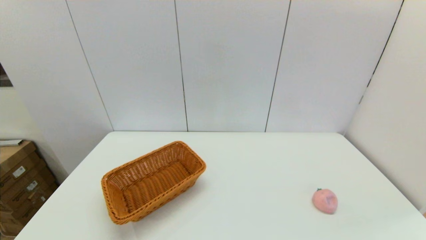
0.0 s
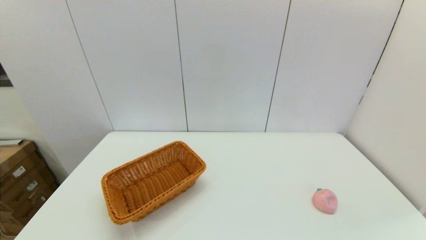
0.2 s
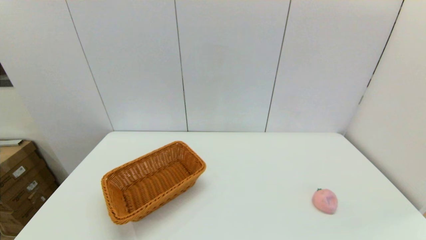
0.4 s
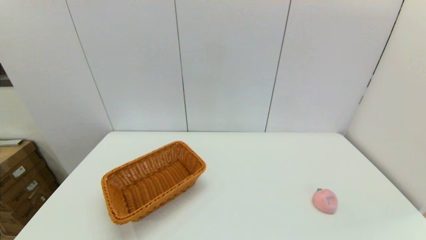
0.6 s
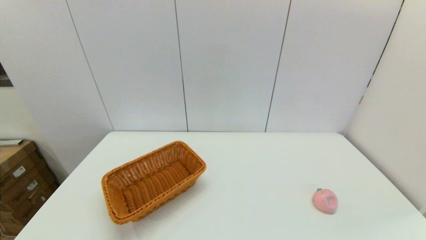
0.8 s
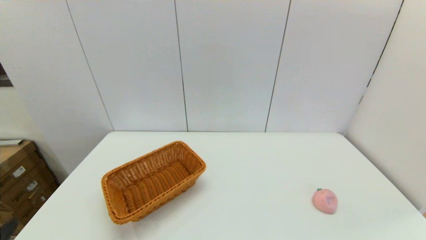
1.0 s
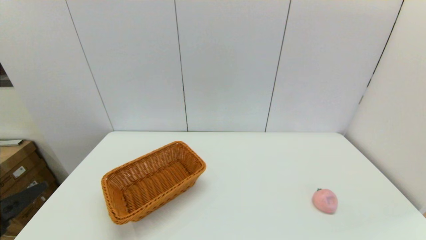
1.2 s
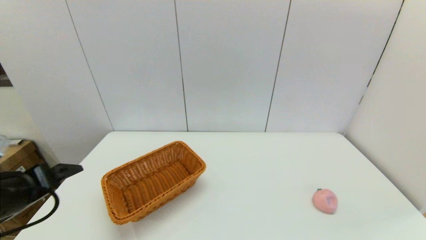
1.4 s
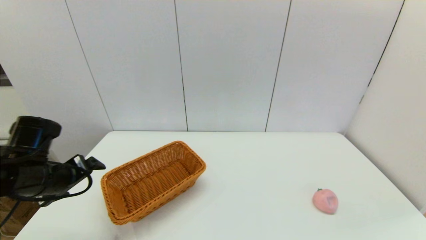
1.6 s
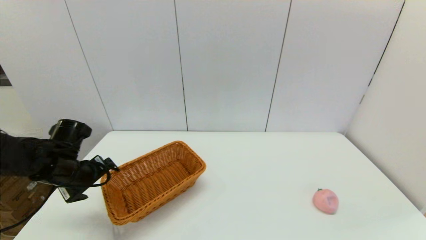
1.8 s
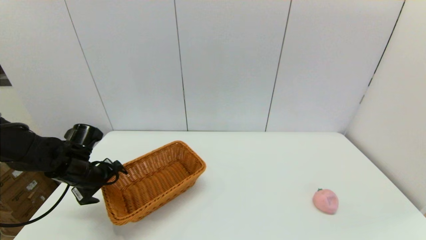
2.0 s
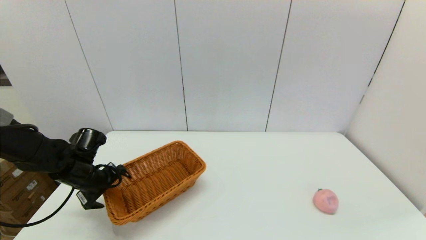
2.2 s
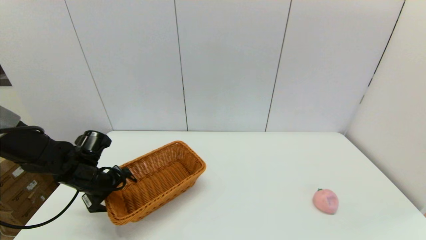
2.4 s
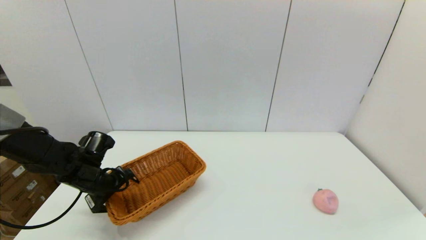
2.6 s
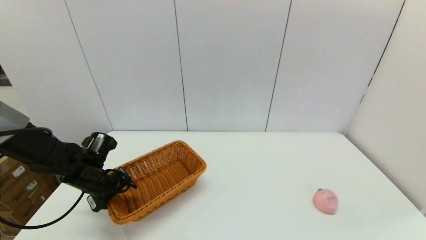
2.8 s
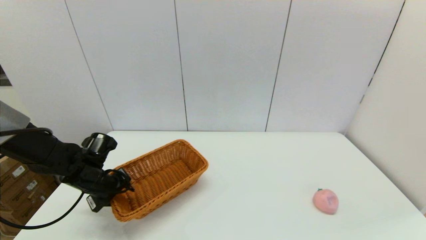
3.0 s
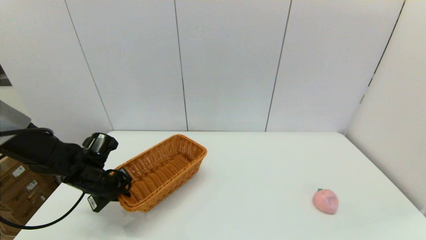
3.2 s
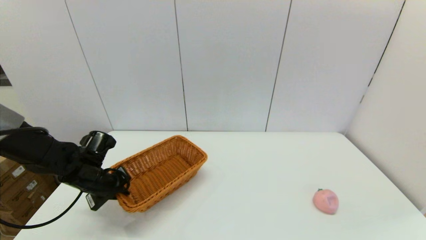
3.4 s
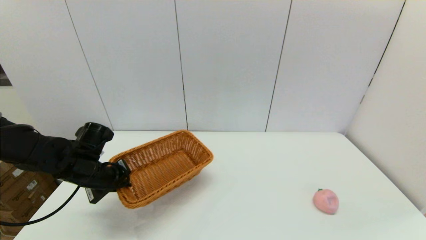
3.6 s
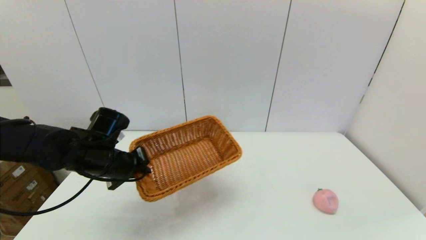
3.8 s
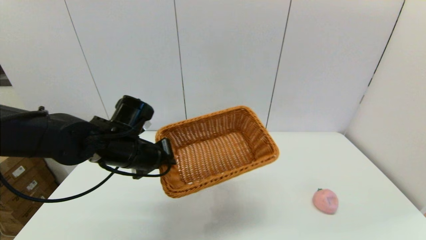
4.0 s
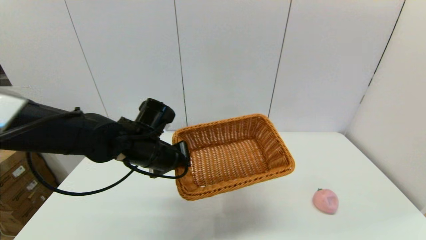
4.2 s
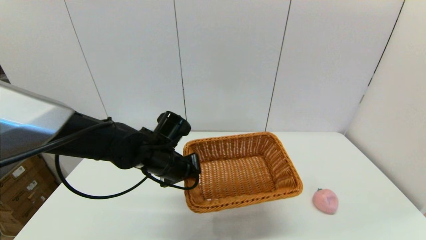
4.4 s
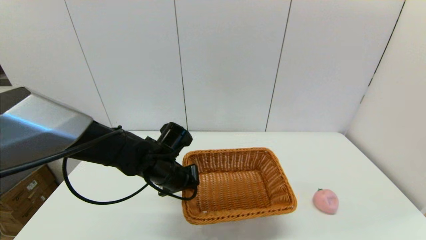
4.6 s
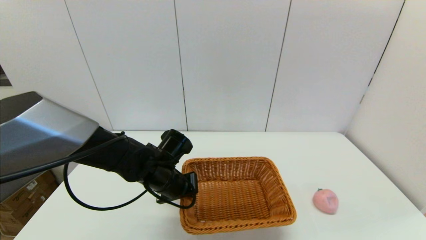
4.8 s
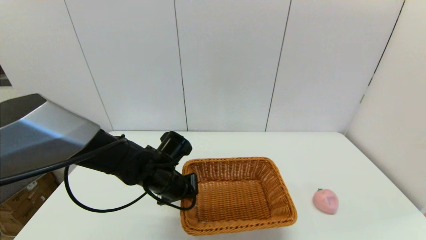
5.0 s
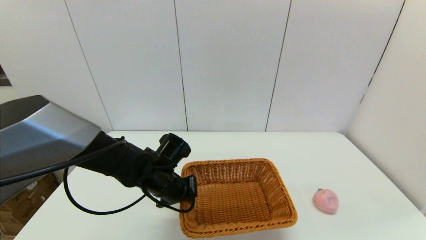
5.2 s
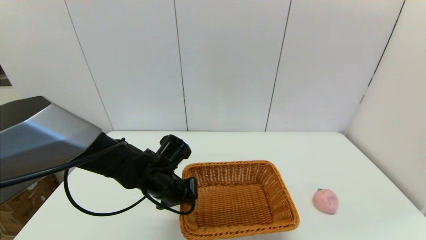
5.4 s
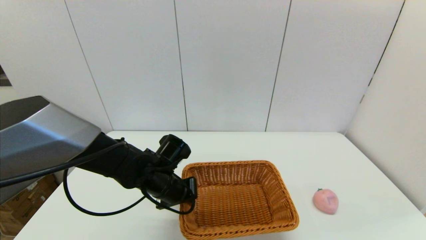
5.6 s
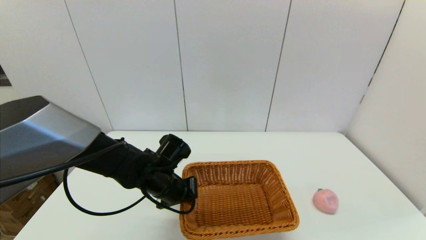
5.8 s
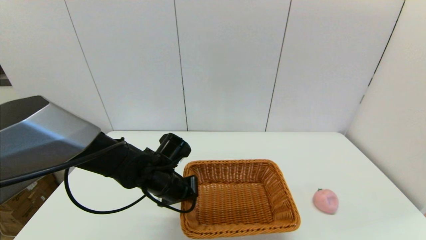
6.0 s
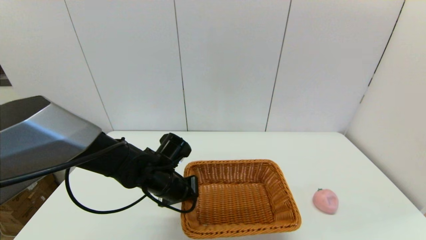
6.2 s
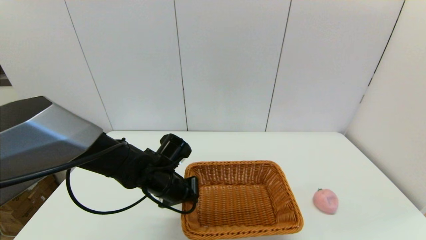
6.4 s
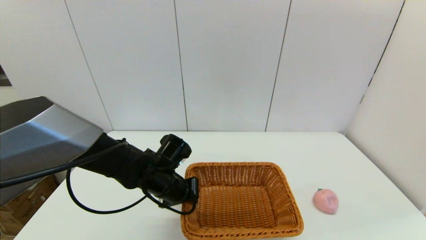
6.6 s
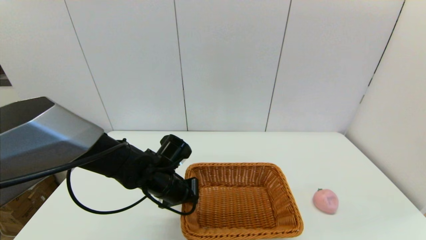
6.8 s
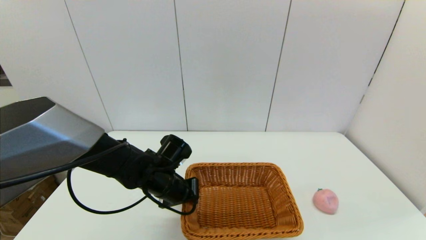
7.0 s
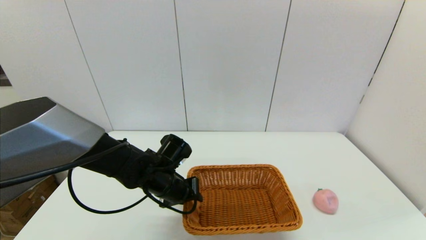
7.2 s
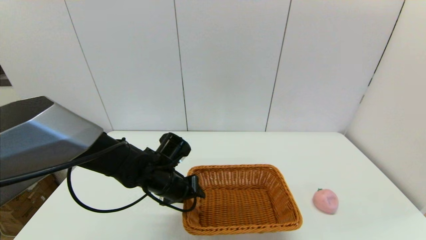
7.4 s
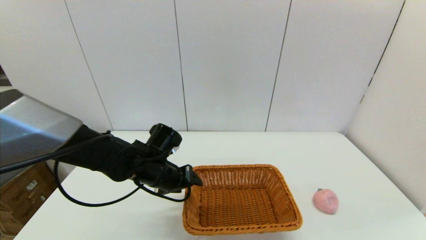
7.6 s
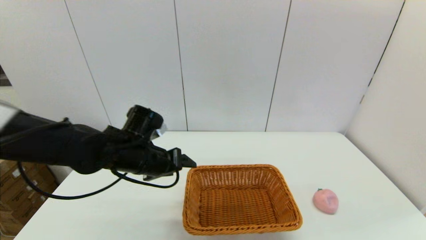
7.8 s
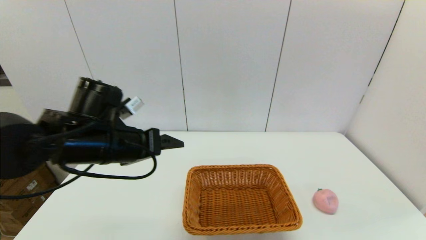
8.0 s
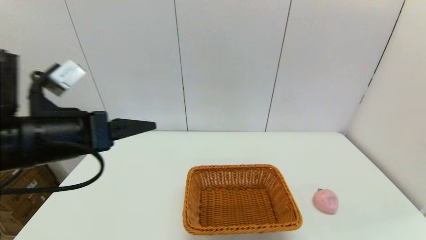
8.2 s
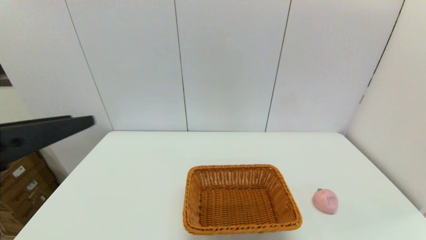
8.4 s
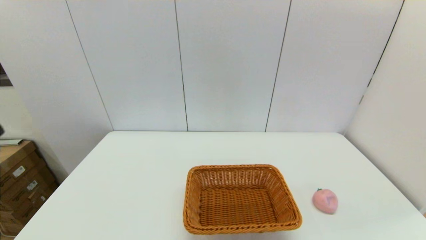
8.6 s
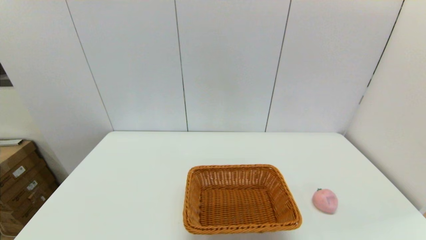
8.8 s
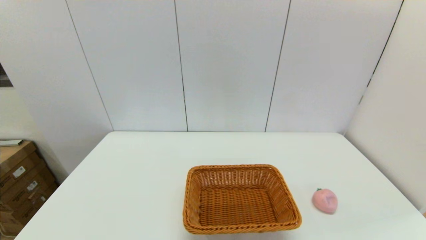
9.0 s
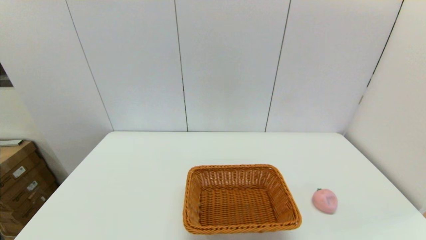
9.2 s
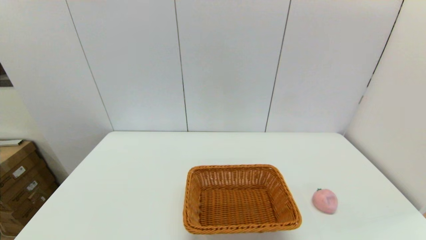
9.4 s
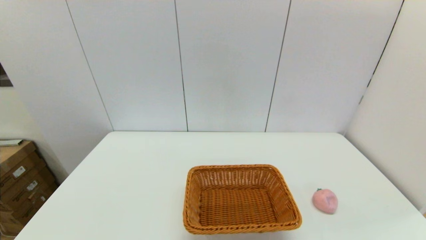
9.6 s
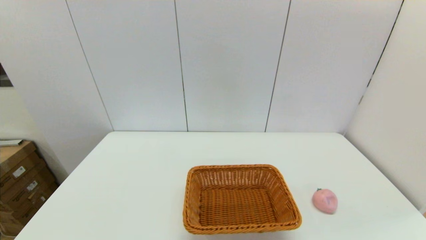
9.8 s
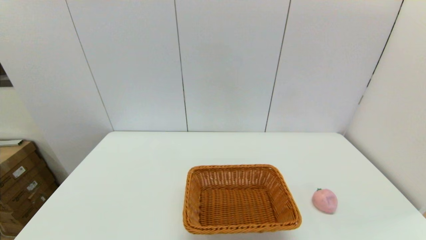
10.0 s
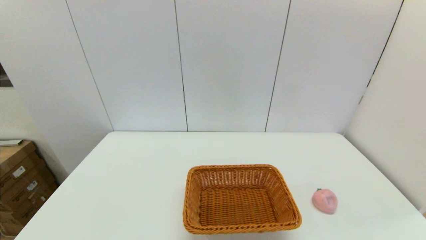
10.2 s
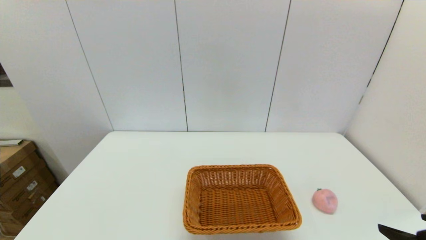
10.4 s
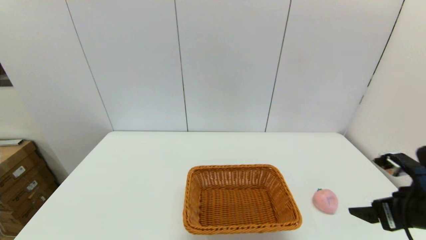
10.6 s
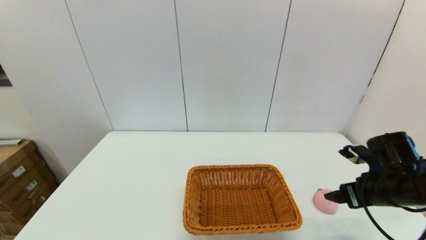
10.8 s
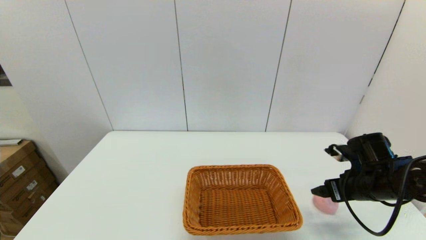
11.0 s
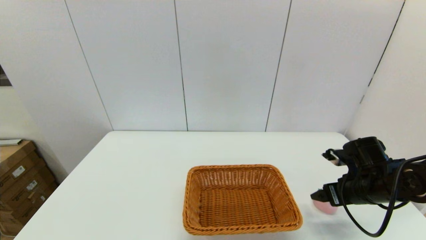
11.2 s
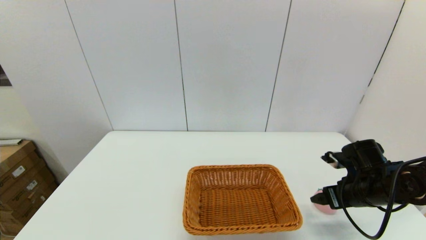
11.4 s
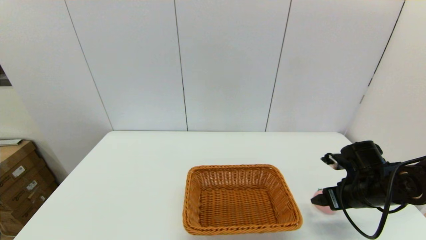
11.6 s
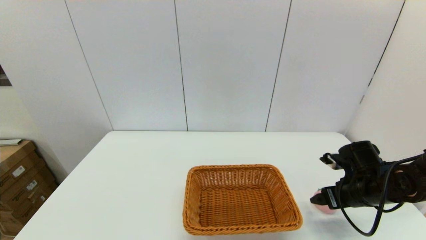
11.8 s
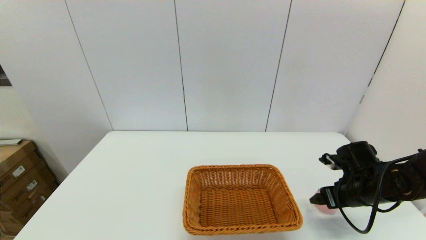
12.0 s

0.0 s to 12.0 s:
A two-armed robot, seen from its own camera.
Step, 0.0 to 3.2 s: Grasp the light basket with the left gripper.
Step, 3.4 to 7.2 s: Place the light basket on the middle of the table with the left gripper.
0.0 to 1.6 s: The left gripper moves forward, approximately 25 cm.
1.6 to 3.0 s: The left gripper moves downward and forward, roughly 10 cm, and closes its fingers.
3.0 to 4.4 s: The left gripper goes approximately 20 cm to the right, and closes up.
6.0 to 7.6 s: The left gripper opens up.
7.6 to 9.0 s: The left gripper goes some 35 cm backward and to the left.
10.4 to 12.0 s: The right gripper shifts approximately 20 cm forward and downward.

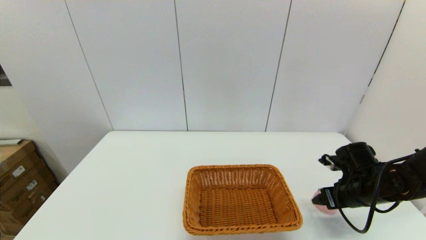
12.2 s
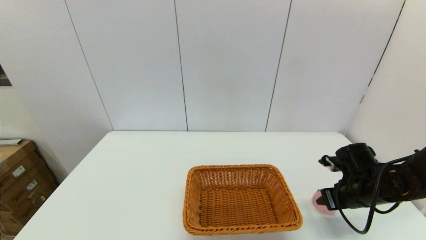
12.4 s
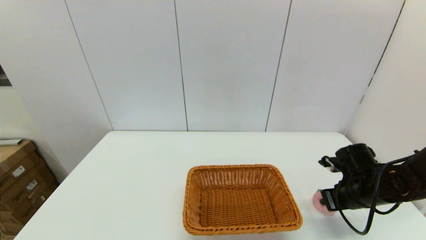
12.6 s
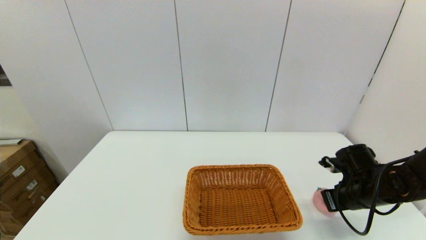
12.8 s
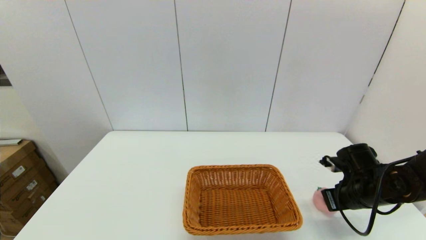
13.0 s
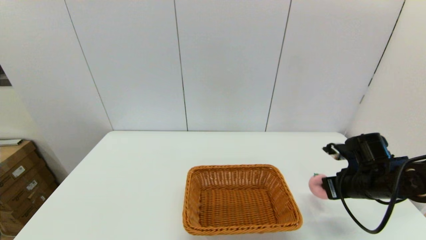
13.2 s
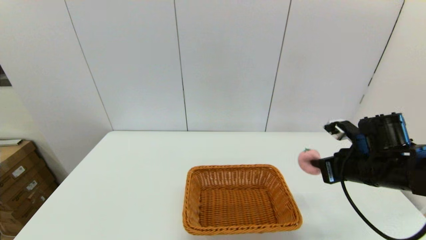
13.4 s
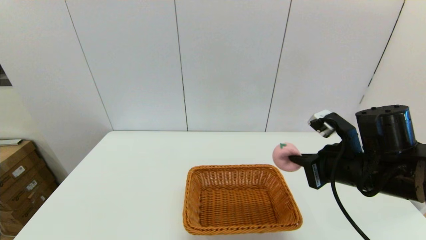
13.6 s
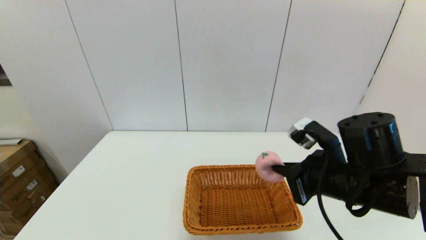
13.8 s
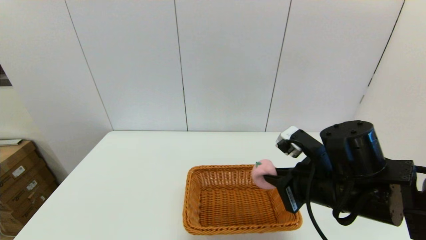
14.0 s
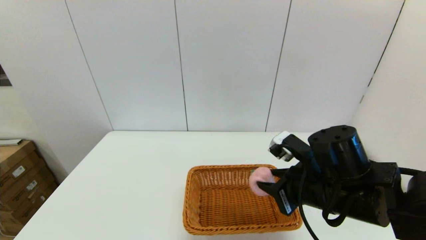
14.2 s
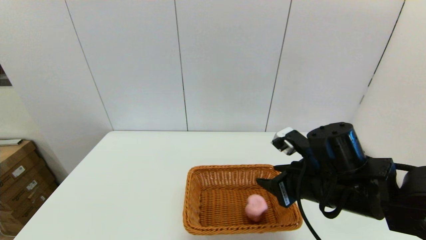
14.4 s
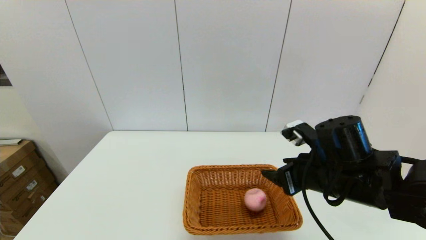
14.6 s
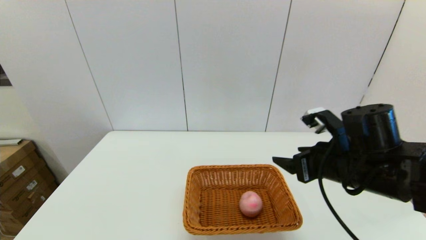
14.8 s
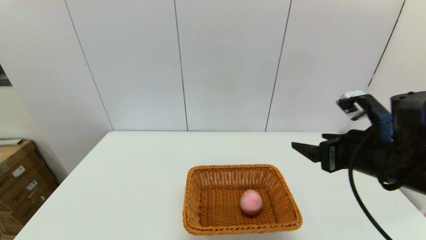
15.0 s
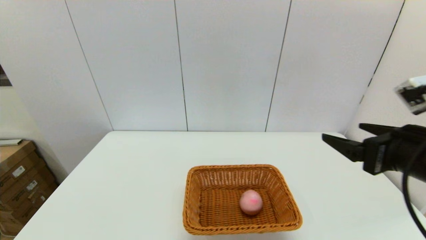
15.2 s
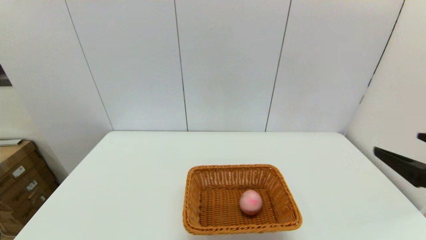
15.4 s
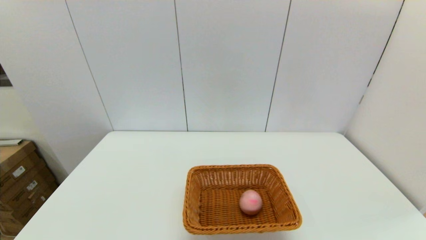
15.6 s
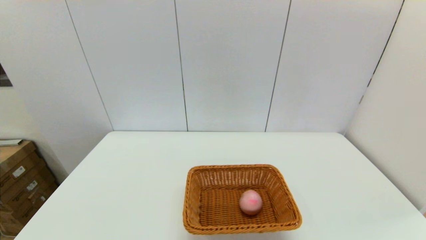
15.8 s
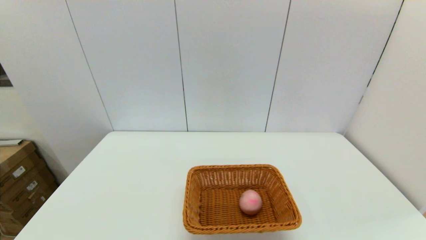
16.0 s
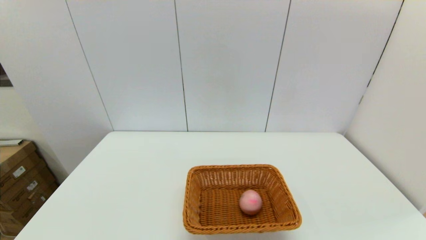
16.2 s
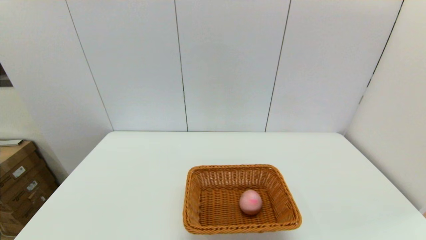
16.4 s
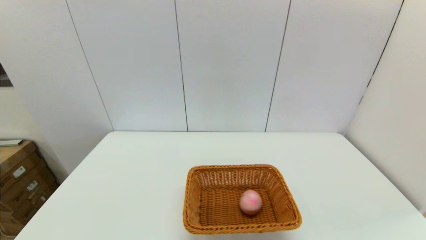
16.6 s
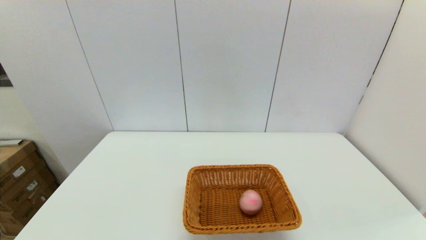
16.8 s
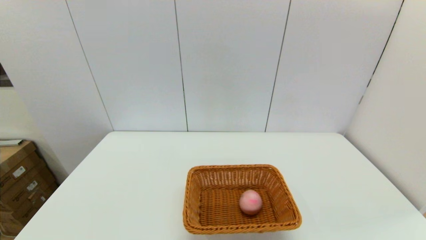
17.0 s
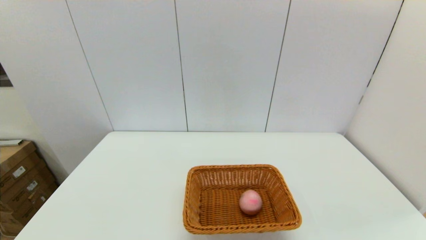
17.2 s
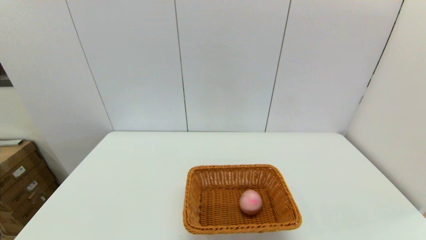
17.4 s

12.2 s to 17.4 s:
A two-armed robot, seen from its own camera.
Step, 13.0 to 14.4 s: Place the peach into the light basket with the right gripper.
12.2 to 14.0 s: The right gripper is displaced to the left, upward and backward by roughly 20 cm, and closes.
14.0 to 15.6 s: The right gripper goes about 25 cm backward and to the right, and opens.
